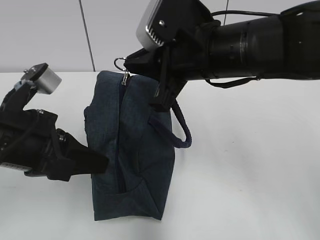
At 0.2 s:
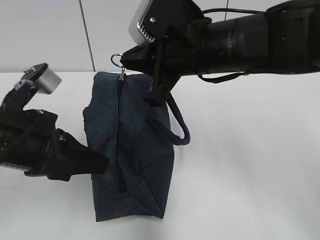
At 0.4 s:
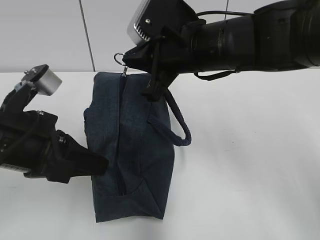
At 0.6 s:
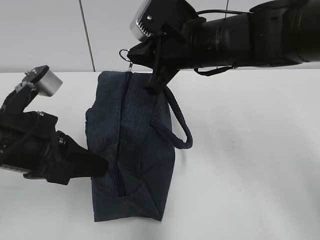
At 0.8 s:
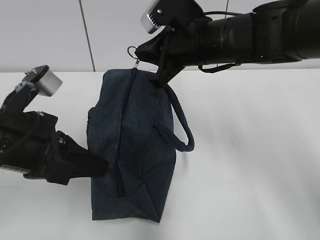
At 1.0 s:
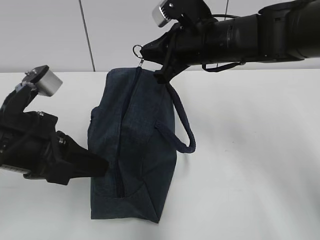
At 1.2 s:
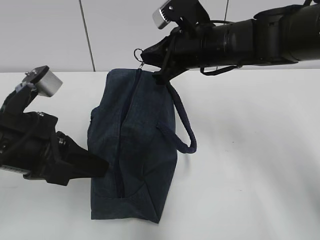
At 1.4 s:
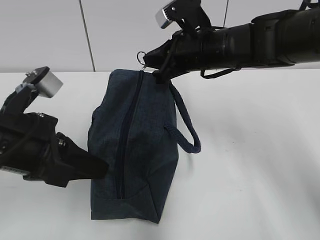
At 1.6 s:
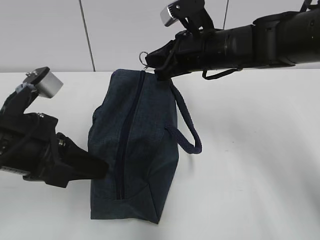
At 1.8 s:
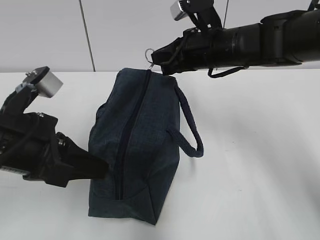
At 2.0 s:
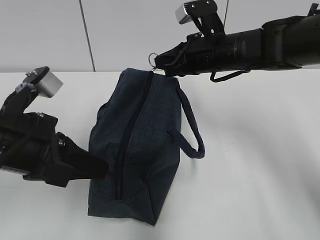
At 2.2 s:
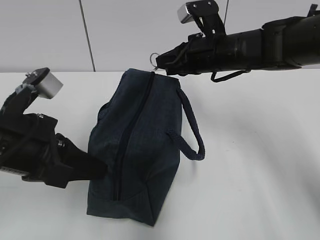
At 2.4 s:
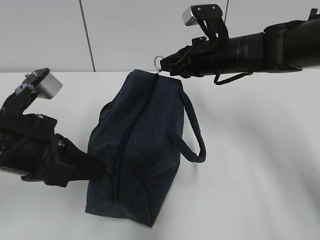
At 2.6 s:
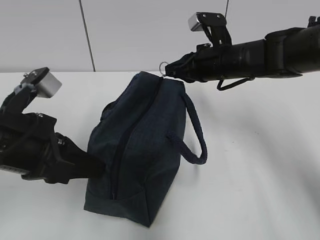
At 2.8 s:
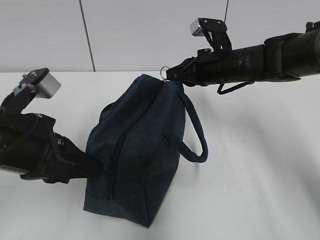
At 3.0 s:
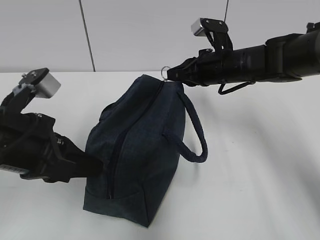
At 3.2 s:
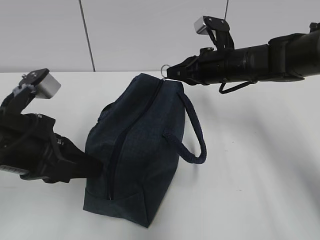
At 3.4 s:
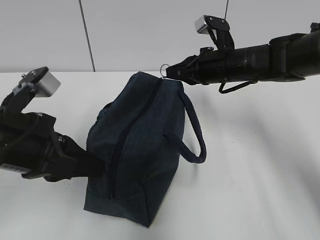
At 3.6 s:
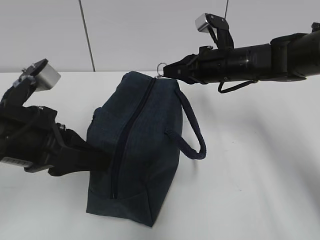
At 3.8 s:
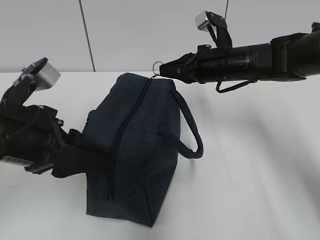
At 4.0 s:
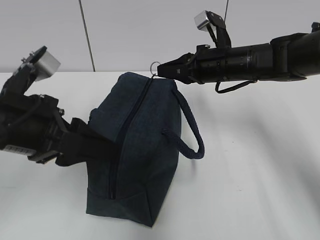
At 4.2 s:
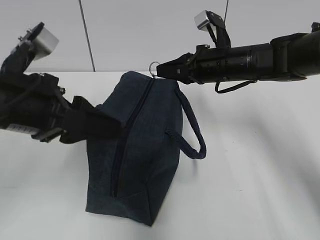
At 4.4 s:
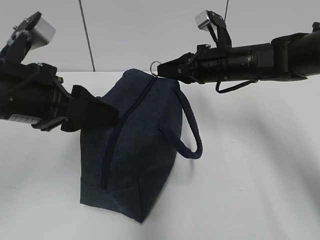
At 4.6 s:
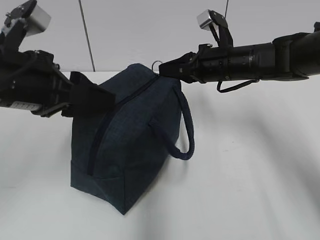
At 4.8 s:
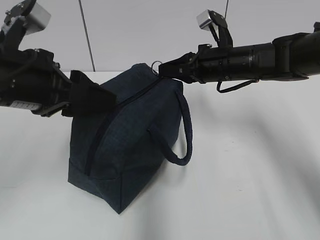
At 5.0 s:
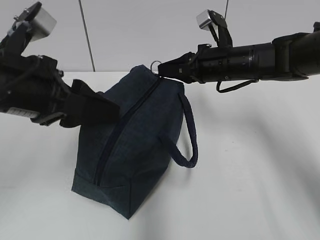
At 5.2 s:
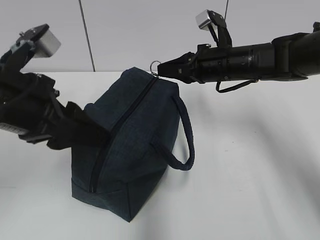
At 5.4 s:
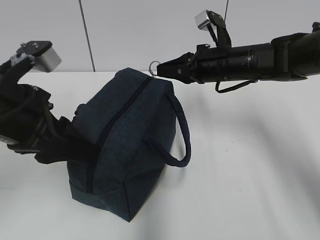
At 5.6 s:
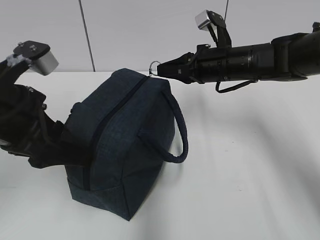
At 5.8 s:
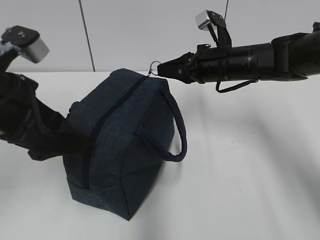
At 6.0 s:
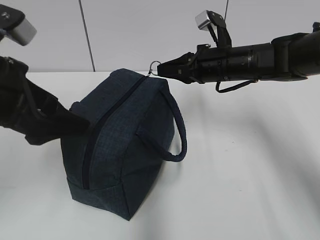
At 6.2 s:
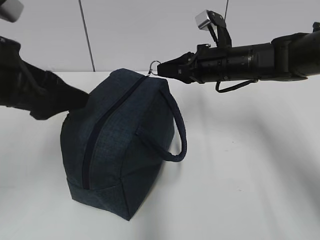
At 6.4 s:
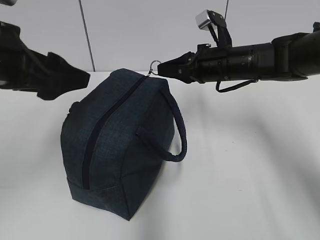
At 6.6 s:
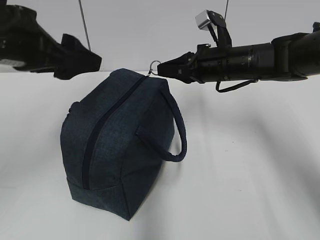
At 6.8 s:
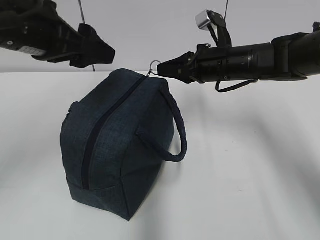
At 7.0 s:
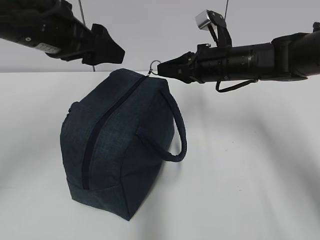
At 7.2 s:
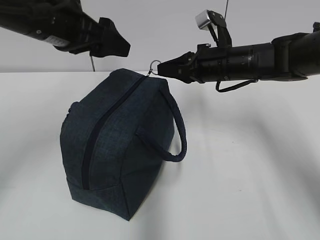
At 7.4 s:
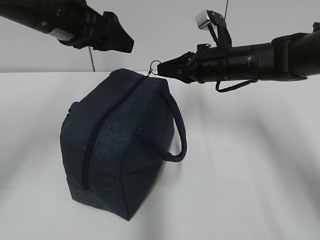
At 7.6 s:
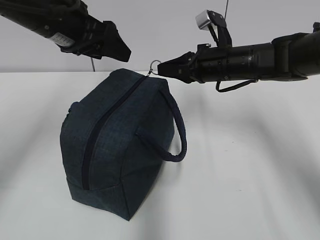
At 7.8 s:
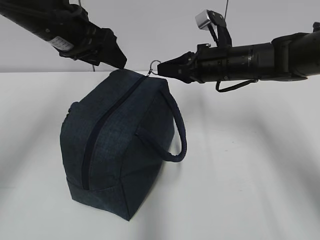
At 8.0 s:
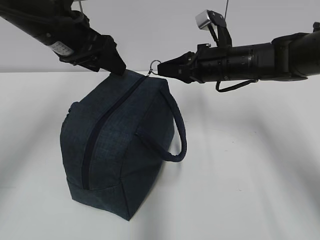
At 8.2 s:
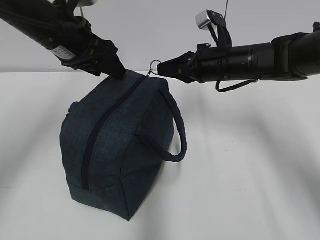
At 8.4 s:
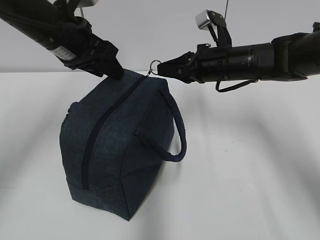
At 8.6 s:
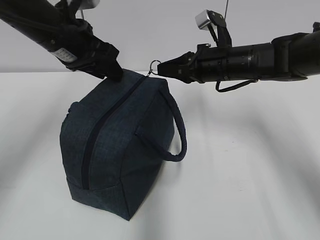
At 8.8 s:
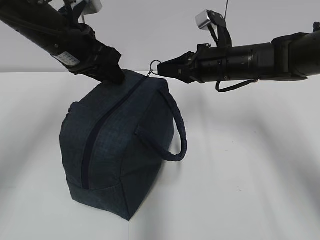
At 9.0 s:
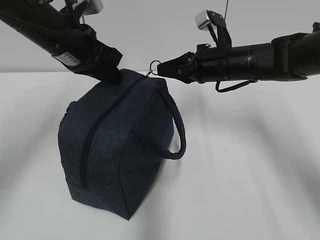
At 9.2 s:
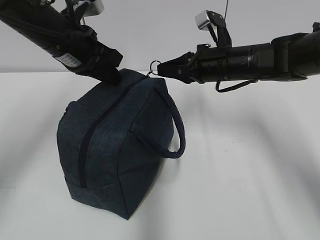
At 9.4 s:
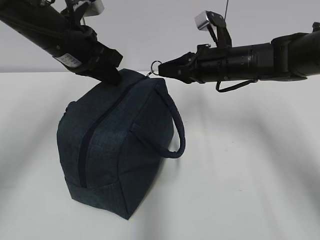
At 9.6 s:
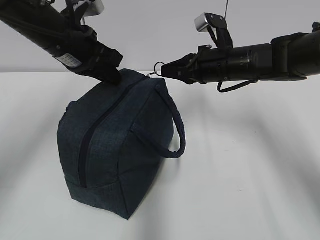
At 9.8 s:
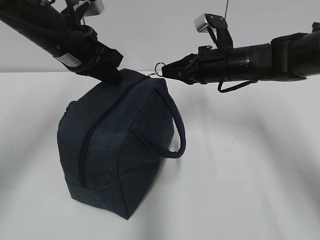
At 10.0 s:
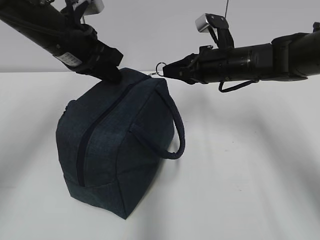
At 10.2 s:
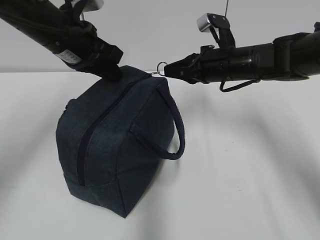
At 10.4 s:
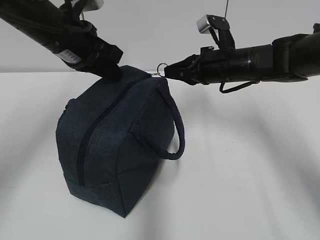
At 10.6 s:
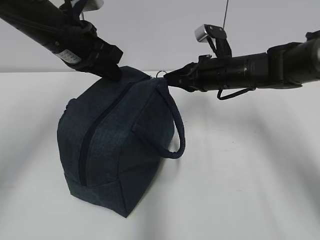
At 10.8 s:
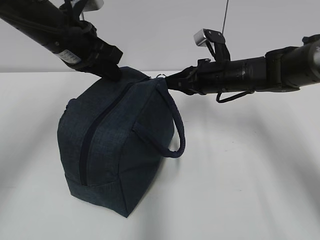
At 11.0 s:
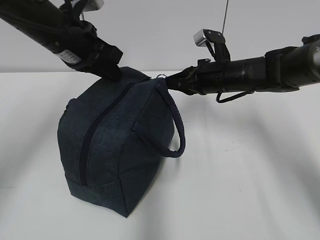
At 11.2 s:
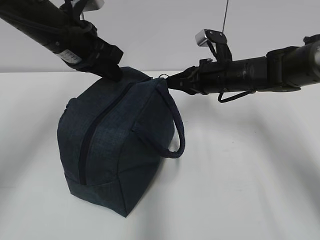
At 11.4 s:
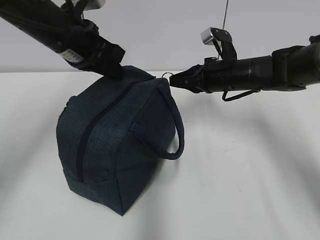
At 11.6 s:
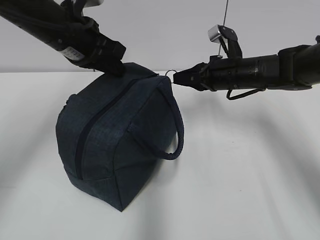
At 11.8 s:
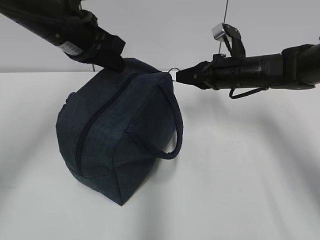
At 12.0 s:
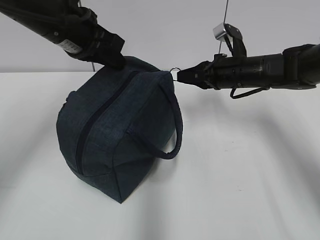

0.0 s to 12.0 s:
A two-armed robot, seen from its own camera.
0.0 to 1.6 s: The right gripper goes approximately 10 cm forward.
1.6 to 3.0 s: The right gripper ends up roughly 10 cm from where it was.
3.0 to 4.4 s: The left gripper moves approximately 5 cm, and opens.
6.0 to 7.6 s: The left gripper travels forward by roughly 15 cm.
7.6 to 9.0 s: The left gripper closes its fingers.
9.0 to 12.0 s: The grippers stay close to where they were, moving slightly.

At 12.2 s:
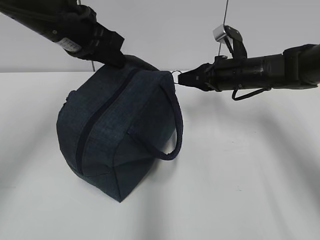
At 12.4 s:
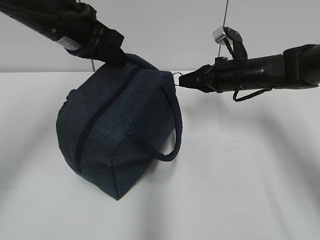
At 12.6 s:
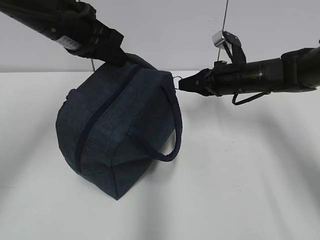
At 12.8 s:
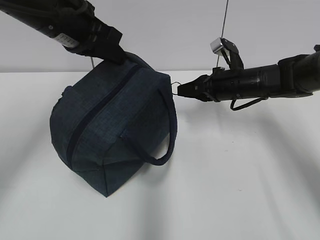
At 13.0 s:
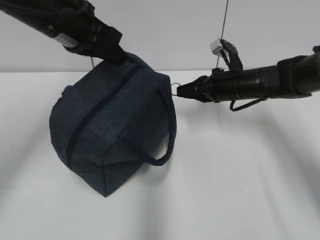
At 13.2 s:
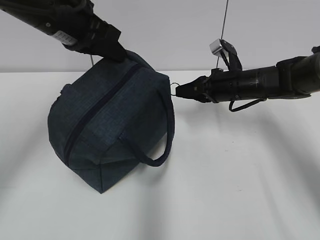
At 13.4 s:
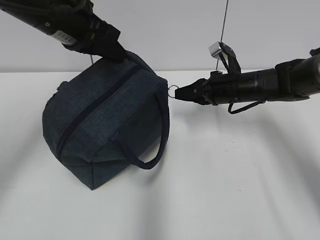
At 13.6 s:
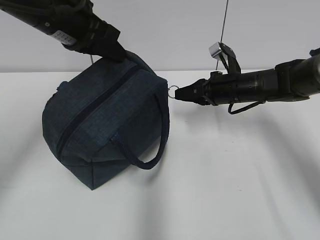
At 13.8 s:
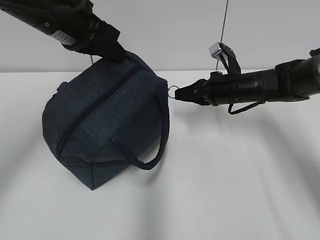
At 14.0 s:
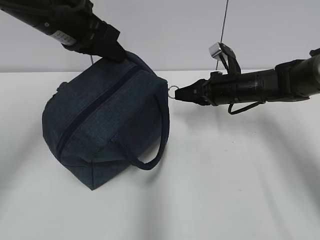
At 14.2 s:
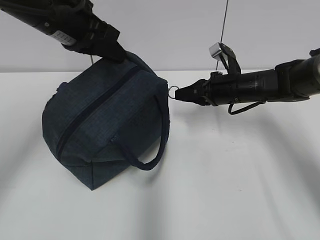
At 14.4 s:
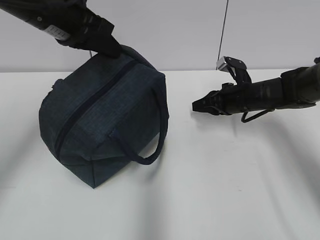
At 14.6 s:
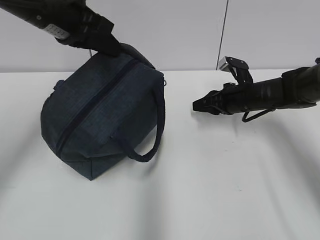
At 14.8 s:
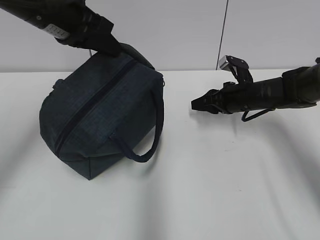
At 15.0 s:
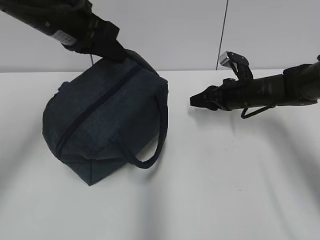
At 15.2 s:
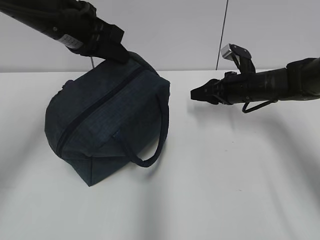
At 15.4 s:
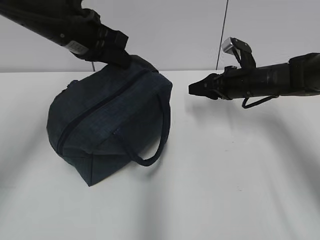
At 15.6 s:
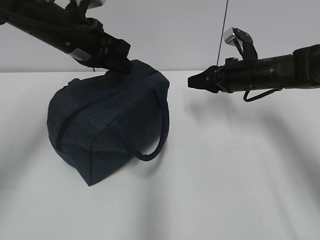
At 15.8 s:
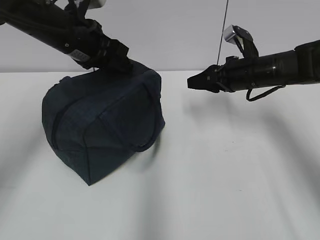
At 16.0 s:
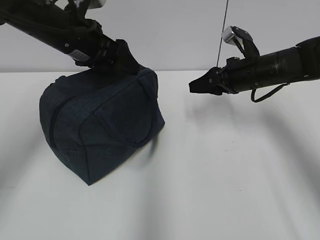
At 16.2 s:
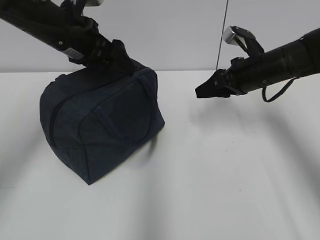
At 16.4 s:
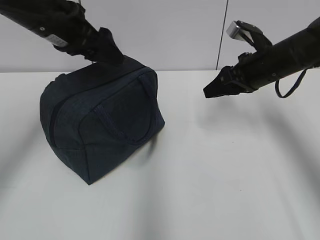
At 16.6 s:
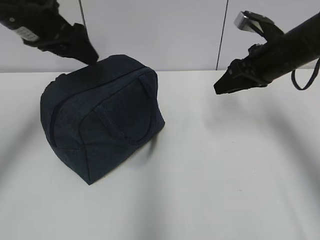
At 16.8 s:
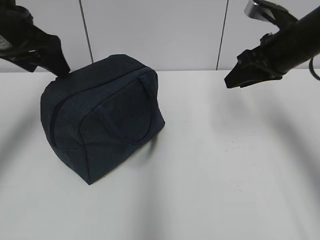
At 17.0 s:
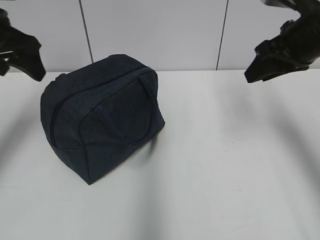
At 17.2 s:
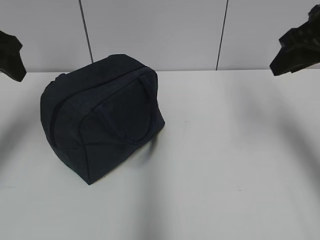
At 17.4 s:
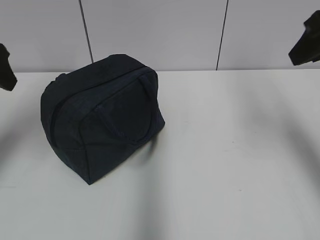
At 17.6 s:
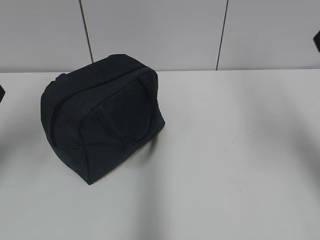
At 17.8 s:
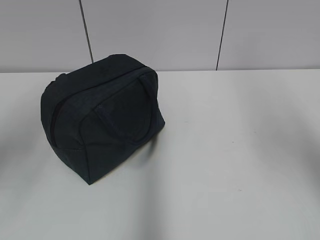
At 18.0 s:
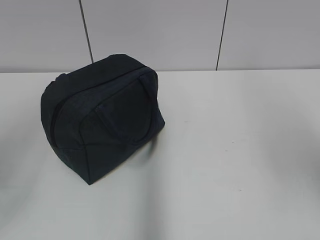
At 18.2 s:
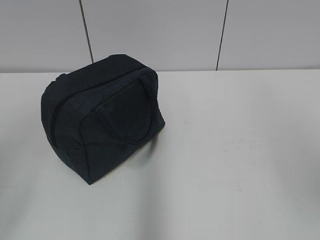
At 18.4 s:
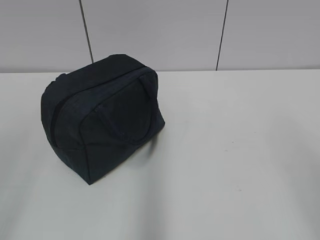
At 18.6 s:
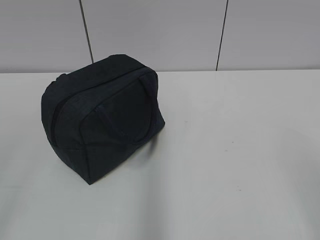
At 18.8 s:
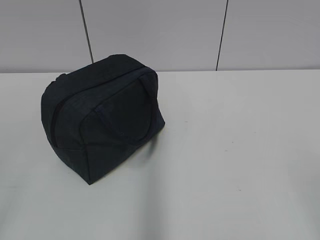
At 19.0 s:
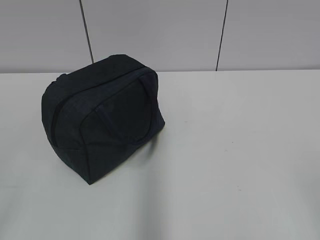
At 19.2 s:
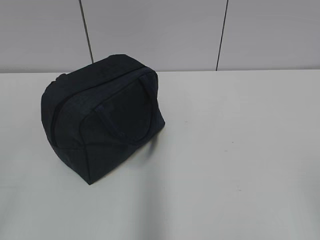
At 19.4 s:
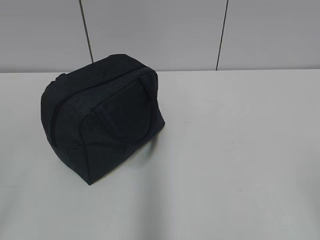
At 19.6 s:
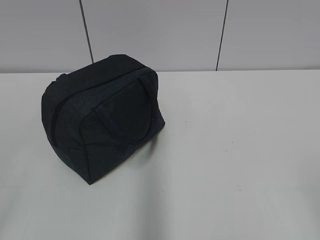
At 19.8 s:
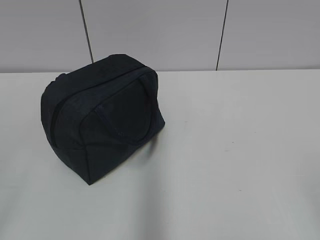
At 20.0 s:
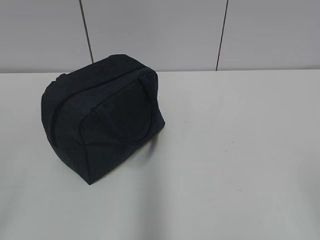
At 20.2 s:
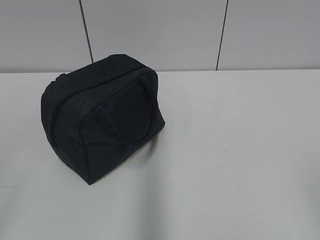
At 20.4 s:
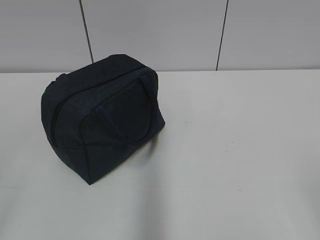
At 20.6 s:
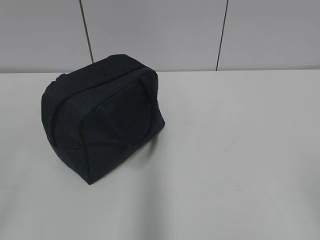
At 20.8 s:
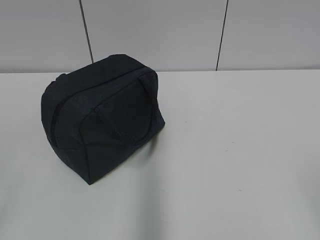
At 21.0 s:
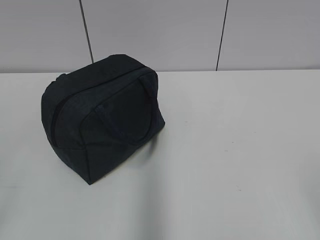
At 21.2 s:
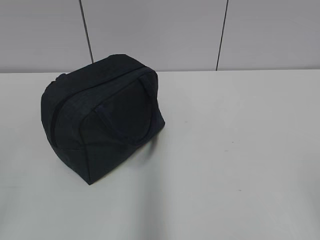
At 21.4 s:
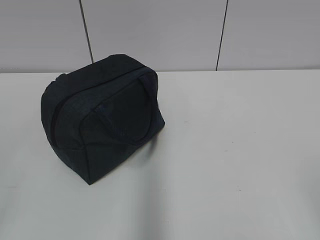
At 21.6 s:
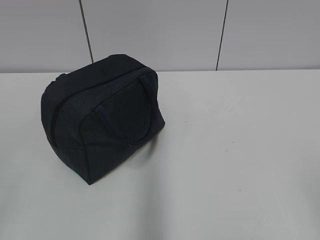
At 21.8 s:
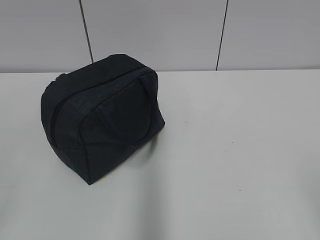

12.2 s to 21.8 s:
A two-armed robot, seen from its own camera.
Step, 12.2 to 14.2 s: Pull the zipper with your right hand.
Step, 14.4 to 15.6 s: Grab the lunch bag with your left hand.
12.2 to 13.8 s: The grippers make only small movements.
13.8 to 15.4 s: The right gripper opens.
15.4 to 17.0 s: The left gripper travels to the left by about 10 cm, and opens, while the right gripper travels upward and backward by about 15 cm.
17.0 to 18.6 s: Both grippers move backward, some 35 cm.

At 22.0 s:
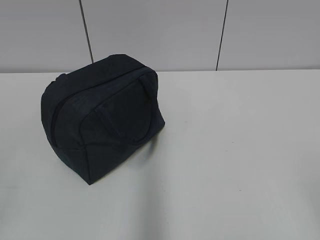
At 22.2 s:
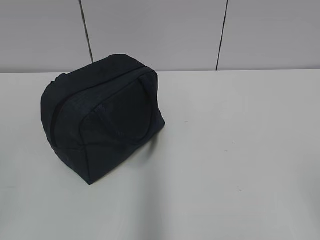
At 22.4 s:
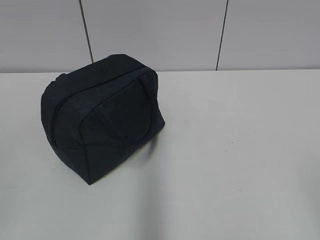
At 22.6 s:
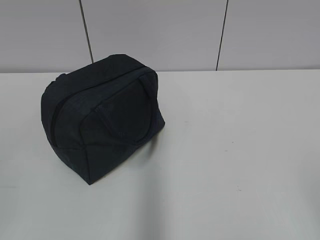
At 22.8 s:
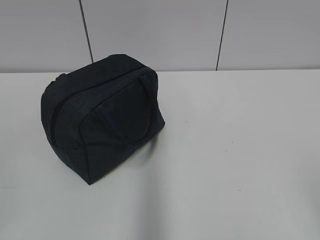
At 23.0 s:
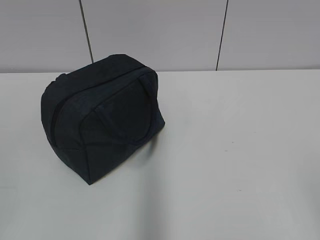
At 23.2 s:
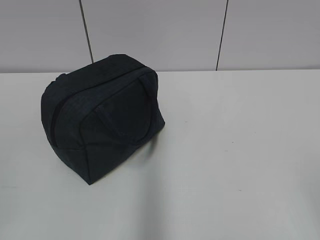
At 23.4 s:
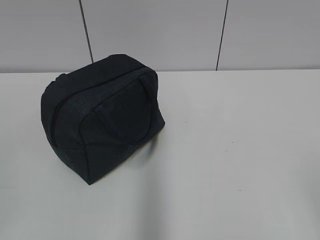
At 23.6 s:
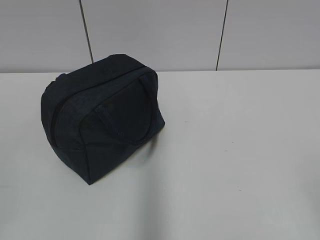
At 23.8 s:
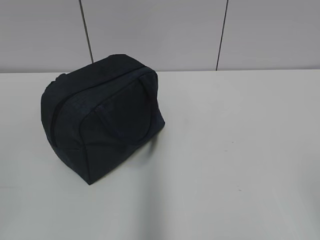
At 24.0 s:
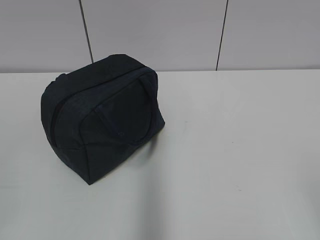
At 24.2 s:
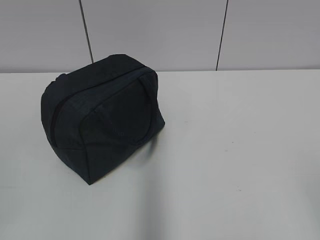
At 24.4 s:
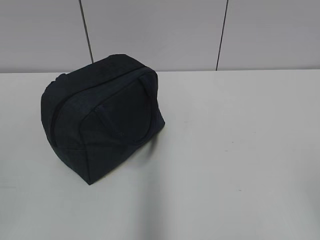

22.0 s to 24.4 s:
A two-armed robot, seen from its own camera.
22.0 to 24.4 s: Neither gripper changes place.
